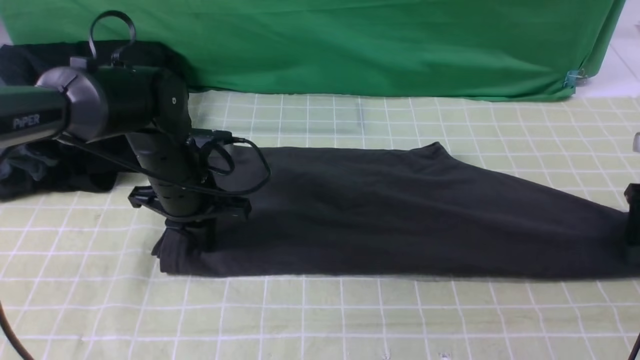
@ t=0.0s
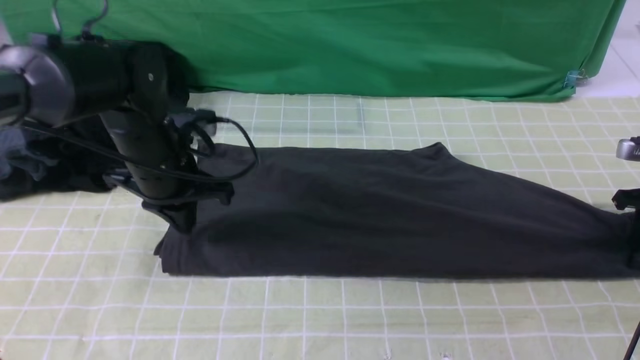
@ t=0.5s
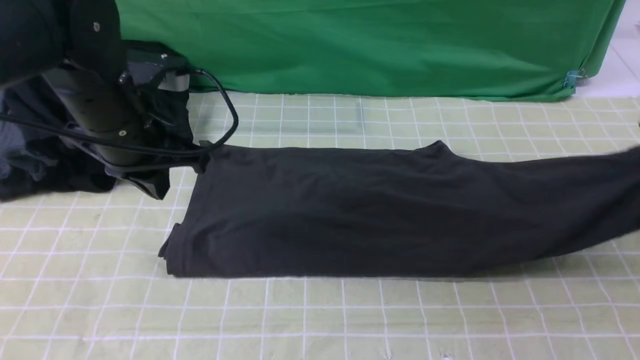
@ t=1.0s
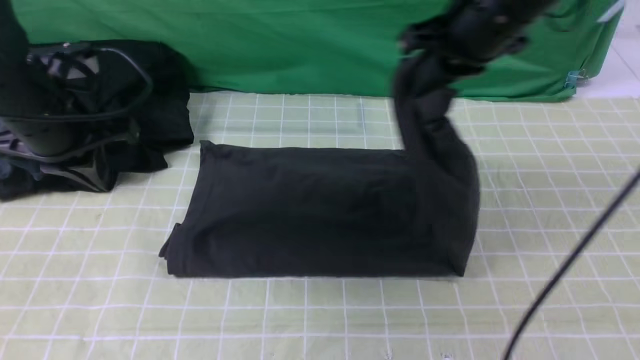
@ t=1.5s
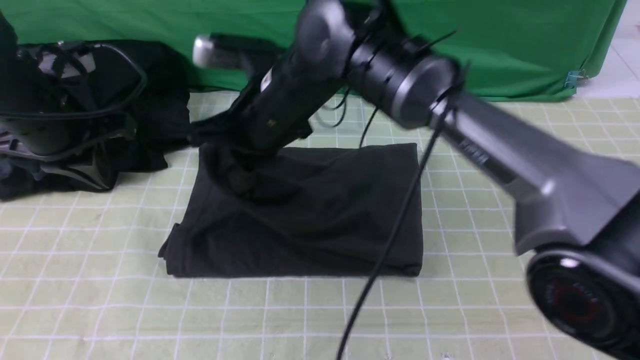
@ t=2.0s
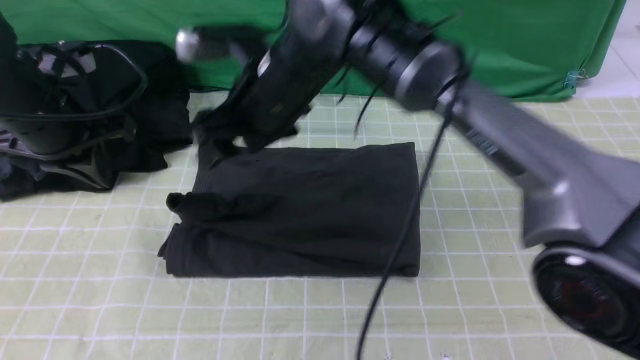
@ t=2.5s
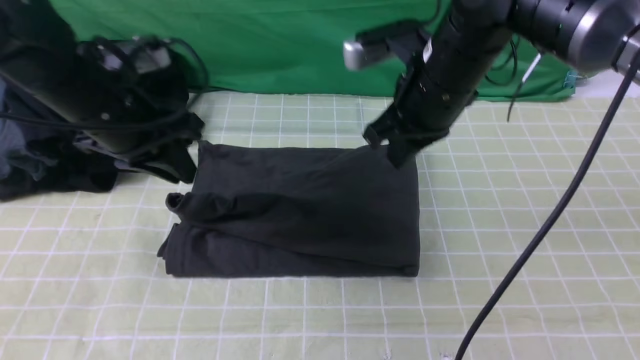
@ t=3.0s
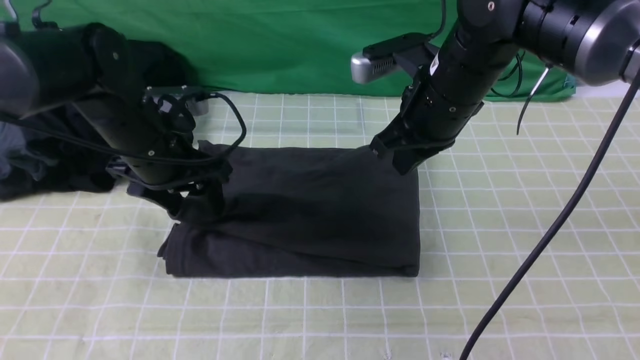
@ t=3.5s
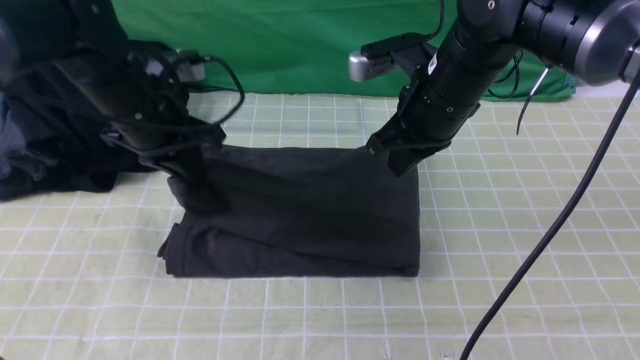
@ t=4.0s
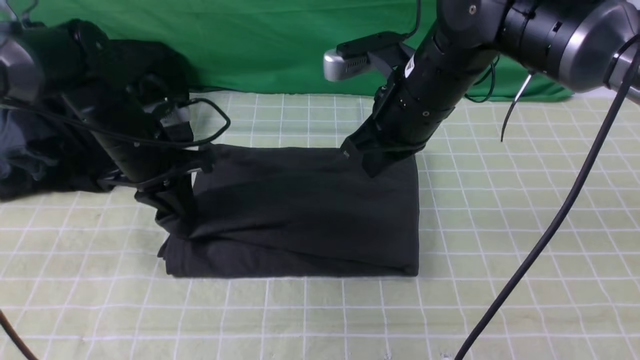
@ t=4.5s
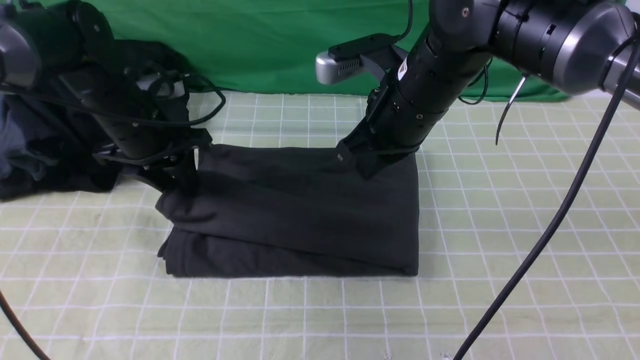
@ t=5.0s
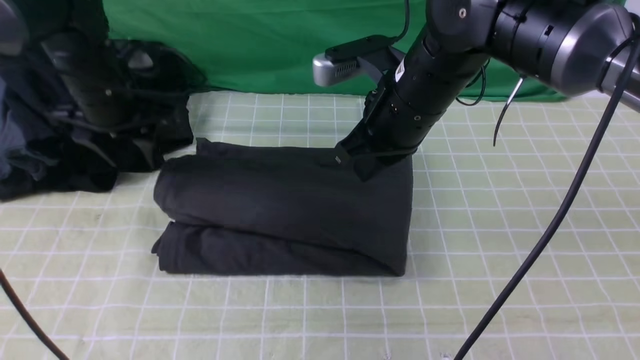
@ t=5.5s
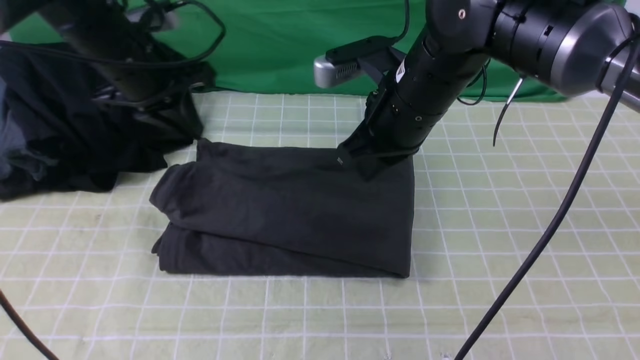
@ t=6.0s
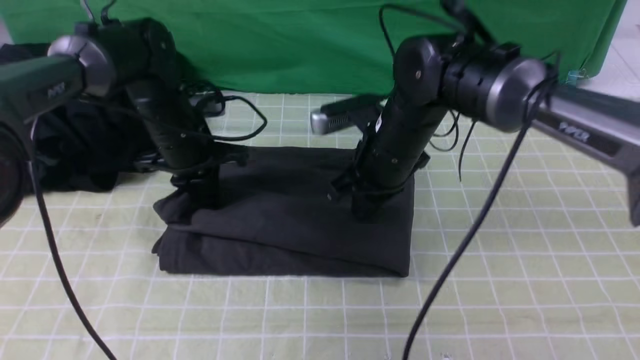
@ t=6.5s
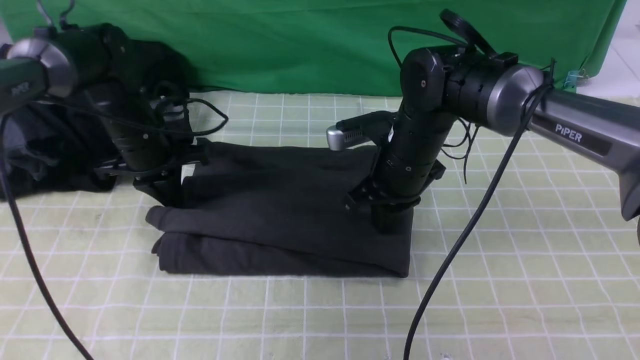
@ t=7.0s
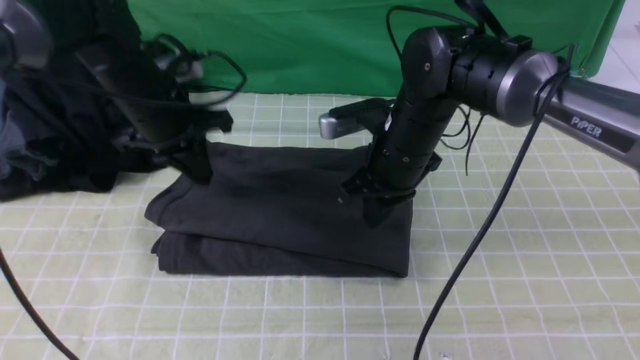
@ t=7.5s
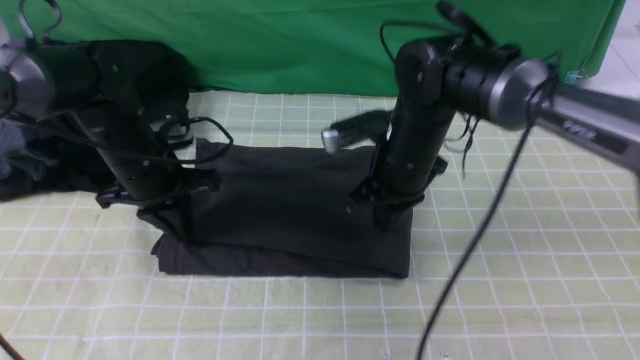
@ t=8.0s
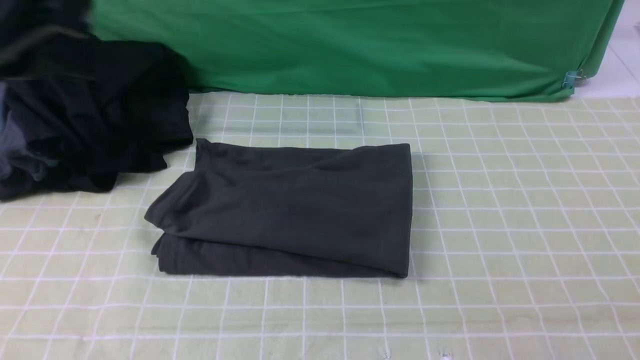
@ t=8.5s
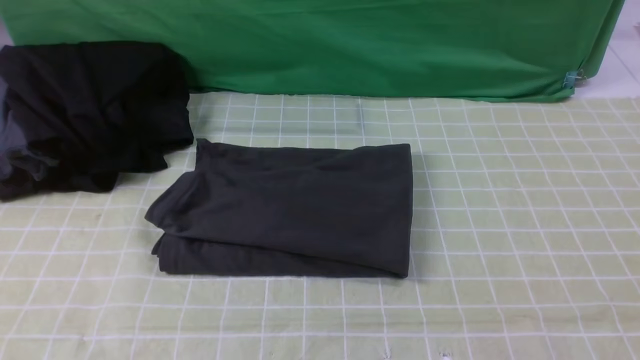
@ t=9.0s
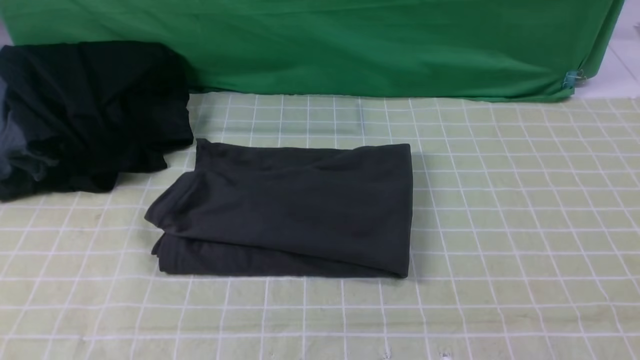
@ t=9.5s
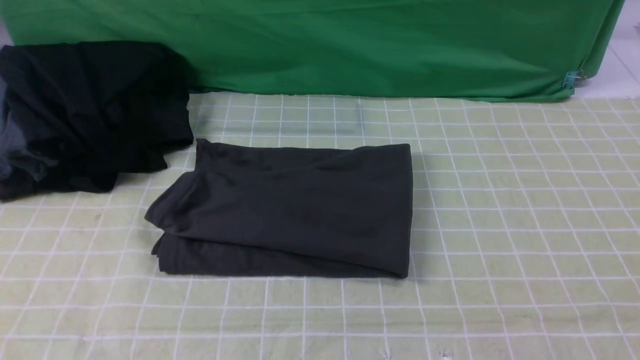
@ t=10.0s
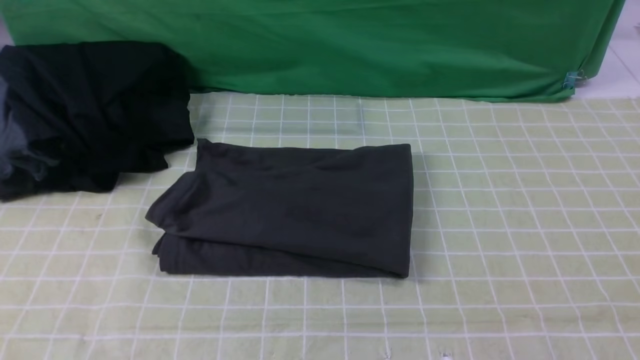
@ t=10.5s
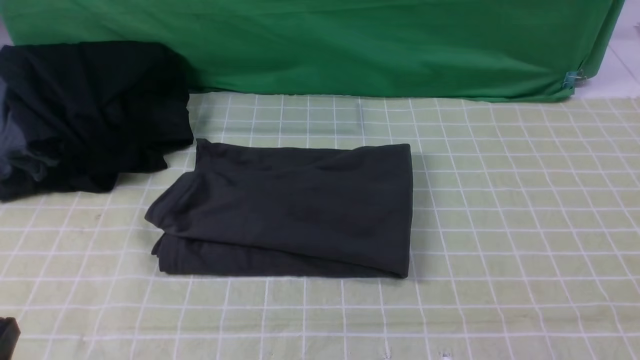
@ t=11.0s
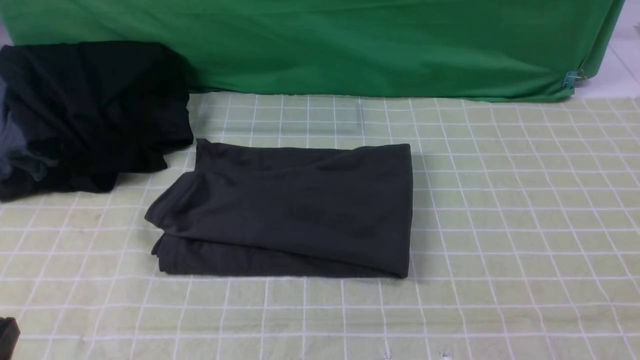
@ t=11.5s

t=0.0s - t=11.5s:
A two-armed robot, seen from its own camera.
Step, t=1.0s - t=2.5s: use the right arm to drag the right edge of the fabric to the left and folds it over the left edge.
t=0.0s - t=2.0s: The right gripper goes about 50 cm to the left, and closes up. Meanwhile the left gripper is displaced to the left and upward by roughly 15 cm.
t=2.0s - t=4.0s: The right gripper moves to the right, some 15 cm, and opens and closes again. Meanwhile the left gripper moves to the right, approximately 5 cm, and opens, then closes again.
t=4.0s - t=6.0s: The left gripper opens, then closes again.
t=6.0s - t=7.5s: The two grippers go some 5 cm downward.
t=7.5s - t=9.5s: The right gripper shifts roughly 40 cm backward, to the right and upward, and opens up. Meanwhile the left gripper shifts about 40 cm backward.

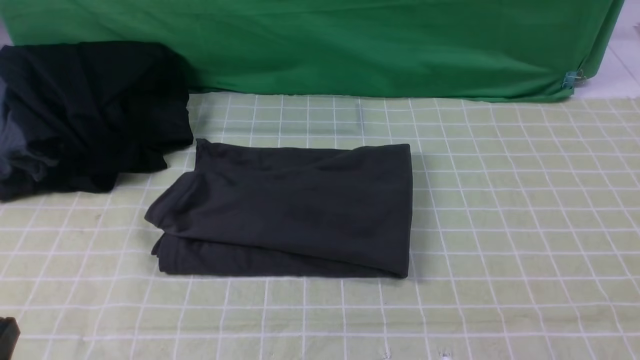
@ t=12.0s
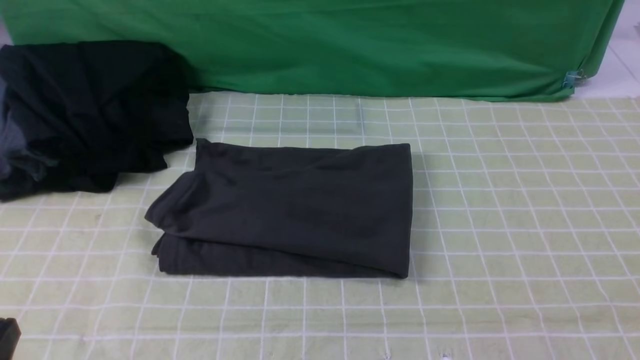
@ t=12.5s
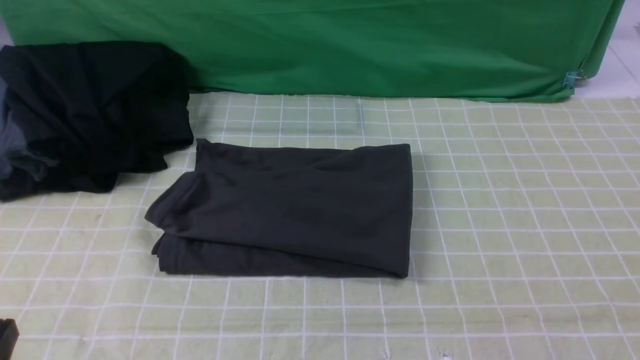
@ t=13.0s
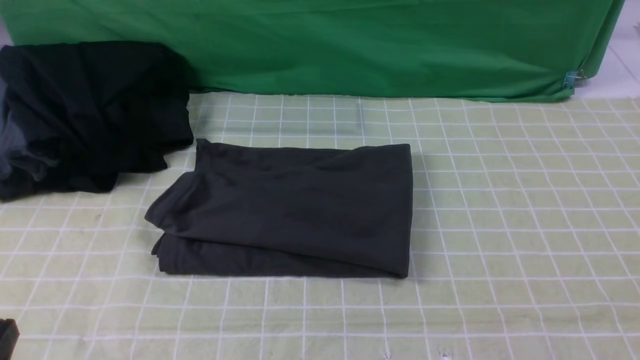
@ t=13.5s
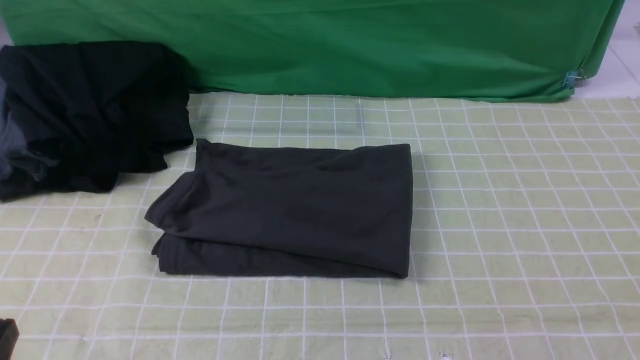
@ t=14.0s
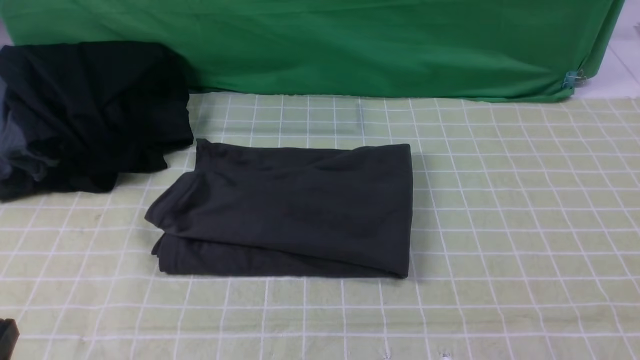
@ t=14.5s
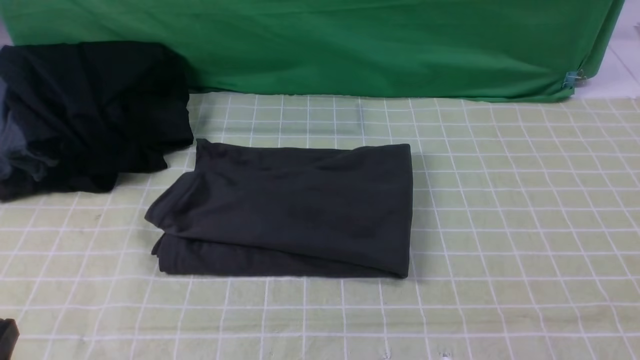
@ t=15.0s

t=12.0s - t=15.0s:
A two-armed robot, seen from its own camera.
t=13.5s - t=15.0s: Both grippers stay put.
